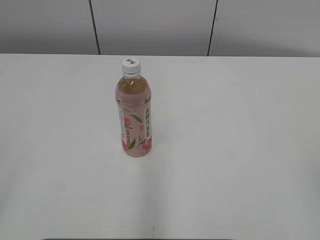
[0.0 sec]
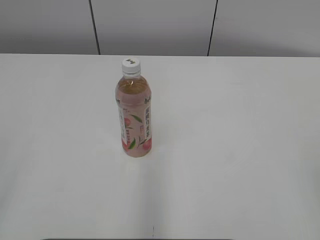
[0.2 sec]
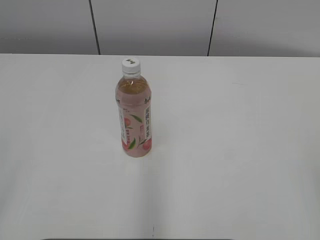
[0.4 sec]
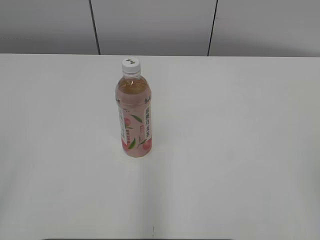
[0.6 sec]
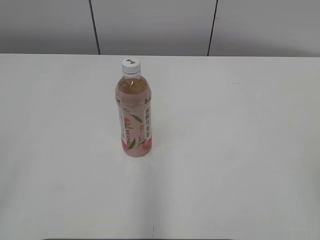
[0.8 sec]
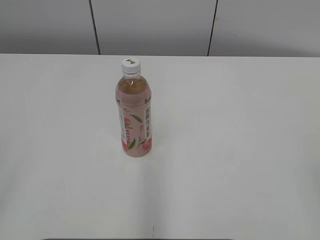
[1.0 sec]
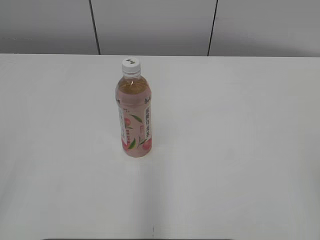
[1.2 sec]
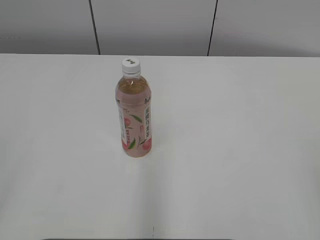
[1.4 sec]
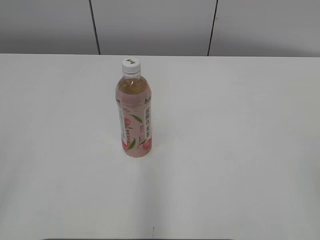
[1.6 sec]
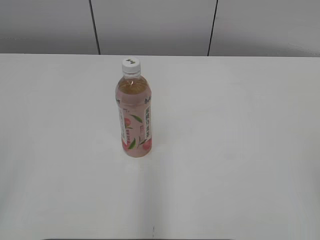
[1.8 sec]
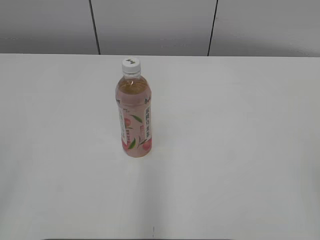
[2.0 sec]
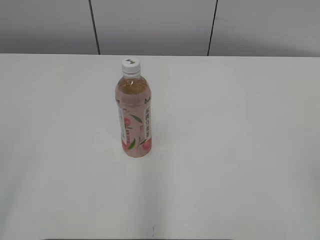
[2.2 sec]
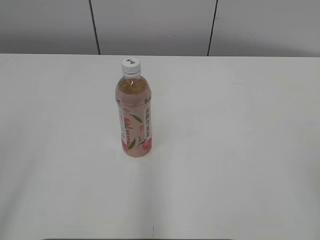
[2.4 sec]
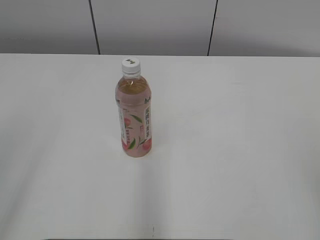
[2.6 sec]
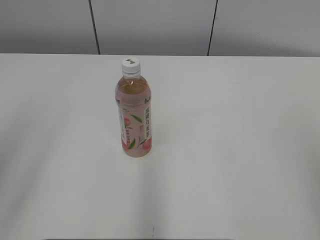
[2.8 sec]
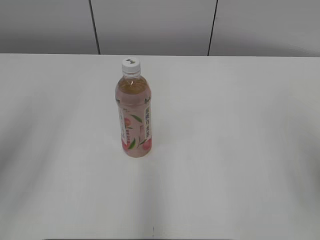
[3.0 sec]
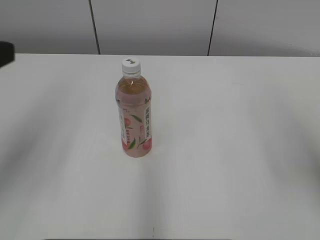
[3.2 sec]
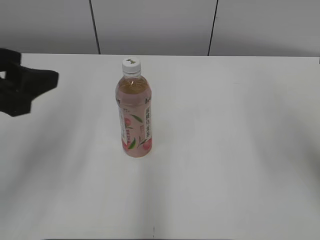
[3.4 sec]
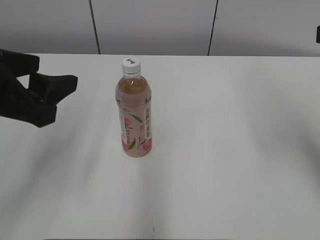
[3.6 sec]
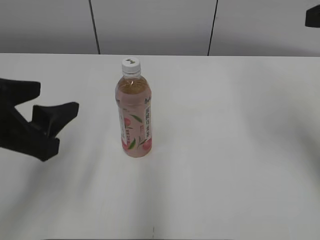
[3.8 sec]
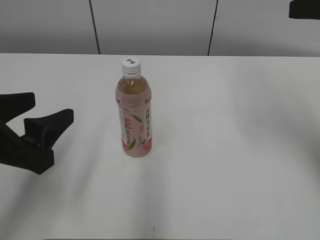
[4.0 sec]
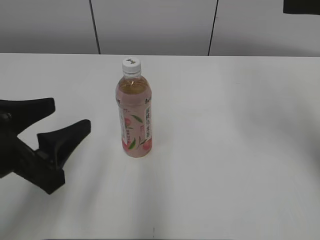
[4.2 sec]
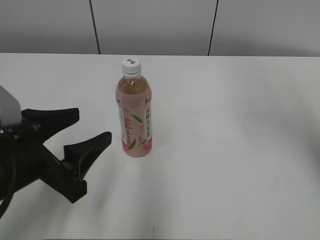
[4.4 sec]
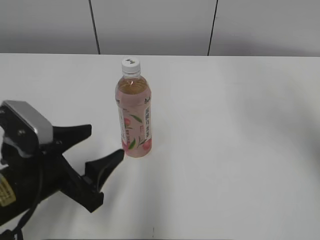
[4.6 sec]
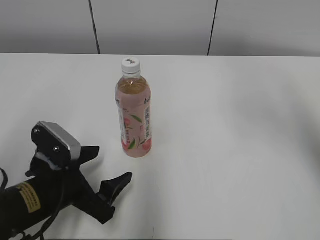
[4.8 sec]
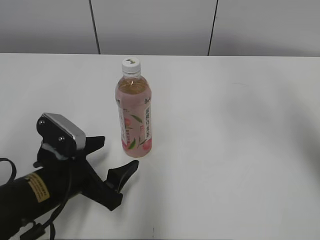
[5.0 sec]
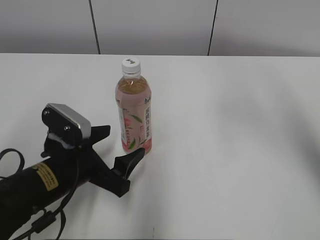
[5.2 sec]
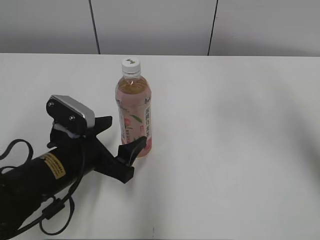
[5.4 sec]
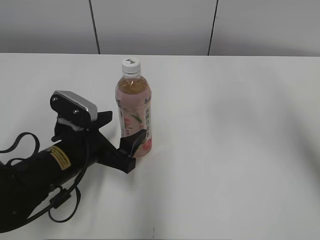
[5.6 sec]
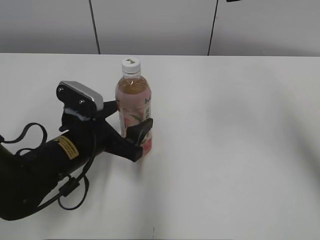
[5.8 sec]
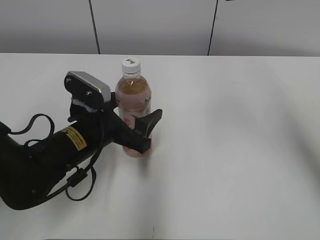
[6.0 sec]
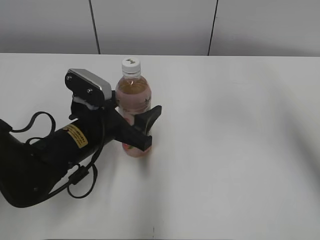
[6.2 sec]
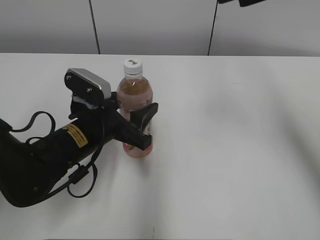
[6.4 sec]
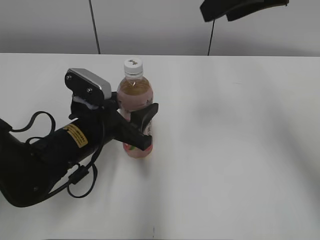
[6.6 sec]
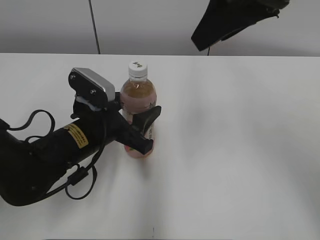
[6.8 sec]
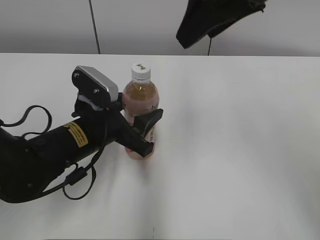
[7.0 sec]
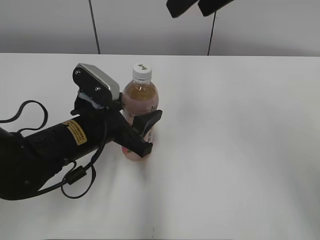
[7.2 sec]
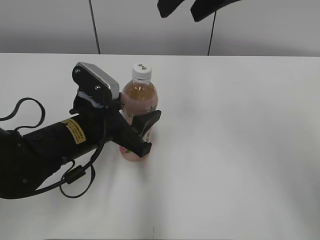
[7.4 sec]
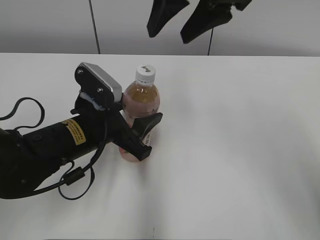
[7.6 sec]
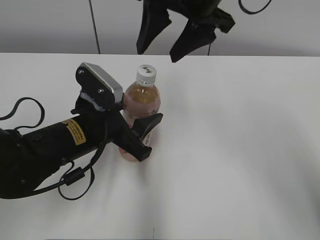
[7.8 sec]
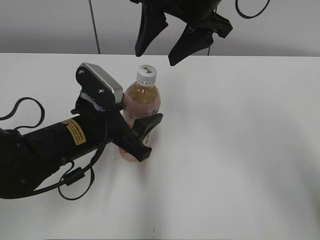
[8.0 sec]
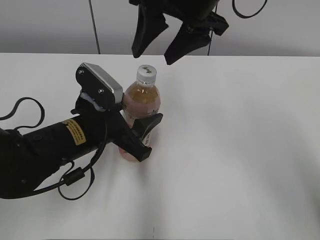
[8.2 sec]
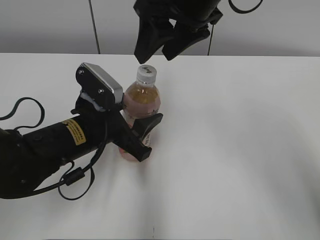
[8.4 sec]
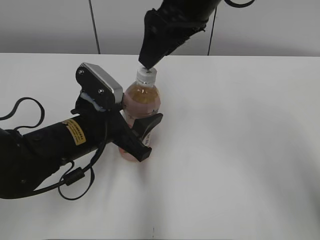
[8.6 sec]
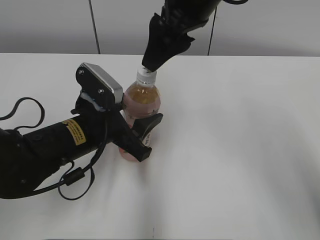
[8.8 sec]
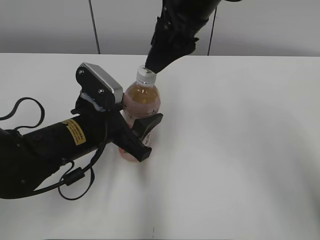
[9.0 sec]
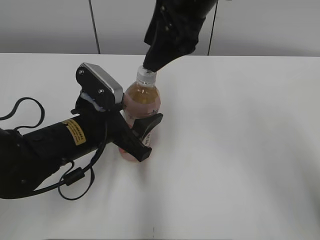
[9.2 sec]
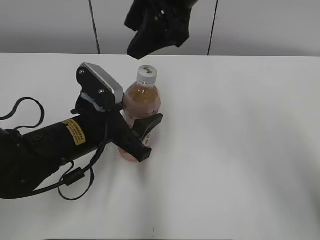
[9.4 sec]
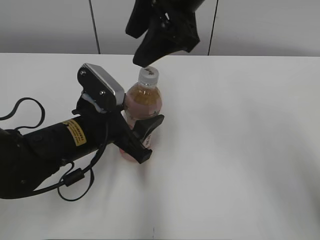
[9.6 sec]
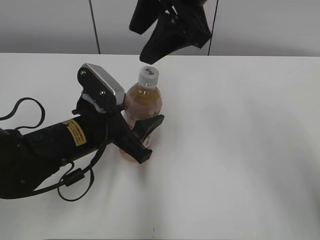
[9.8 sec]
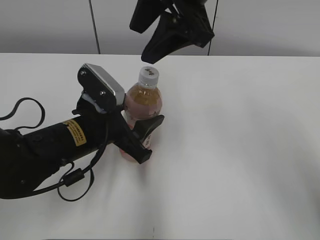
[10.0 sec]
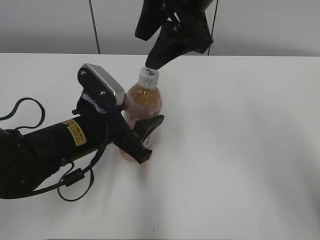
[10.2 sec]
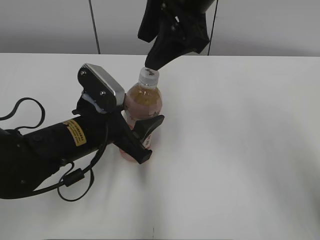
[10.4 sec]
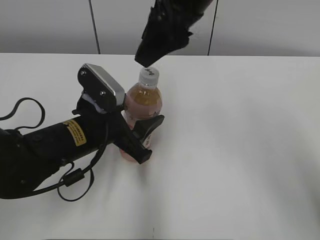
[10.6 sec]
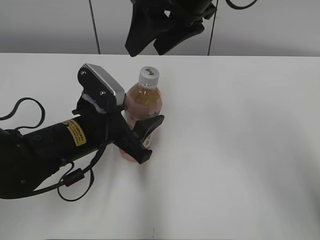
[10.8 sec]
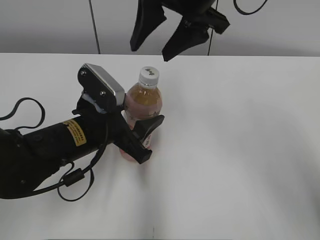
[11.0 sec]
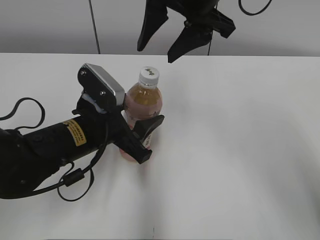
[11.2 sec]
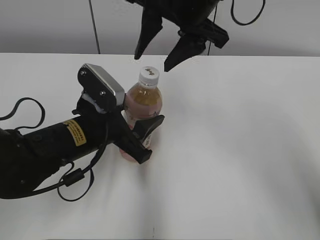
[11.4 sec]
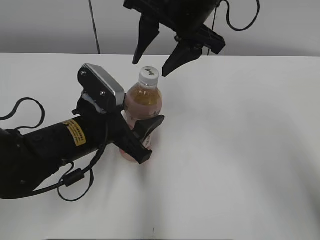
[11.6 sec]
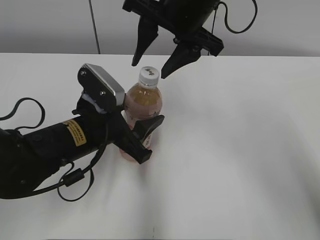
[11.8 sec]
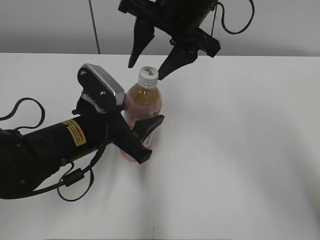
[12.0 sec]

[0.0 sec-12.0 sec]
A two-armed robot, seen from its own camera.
Step, 0.0 sec to 6.2 sec: Grab the Peach Oolong Tea with the left hand.
1.6 sec to 3.0 sec: The left gripper moves forward, approximately 15 cm.
3.0 sec to 4.4 sec: The left gripper moves downward and to the right, some 20 cm.
4.4 sec to 6.0 sec: The right gripper shifts about 10 cm to the left, and opens; the left gripper shifts some 15 cm forward, to the right and downward.
6.0 sec to 7.6 sec: The right gripper travels to the left by approximately 10 cm. The left gripper closes its fingers.

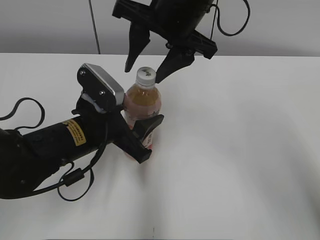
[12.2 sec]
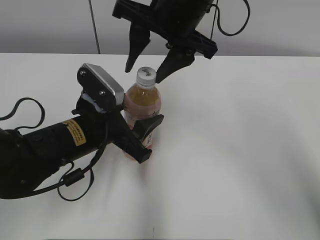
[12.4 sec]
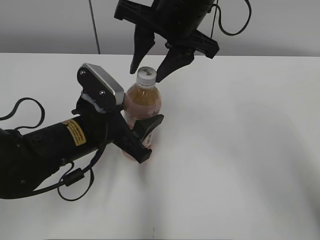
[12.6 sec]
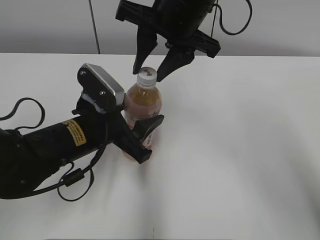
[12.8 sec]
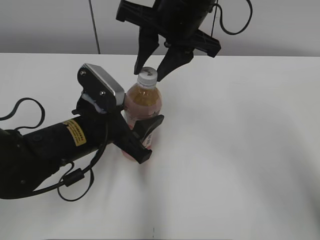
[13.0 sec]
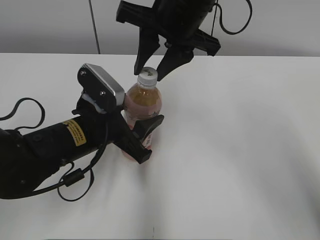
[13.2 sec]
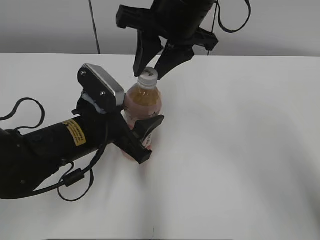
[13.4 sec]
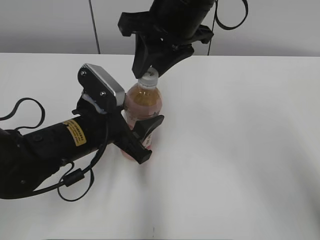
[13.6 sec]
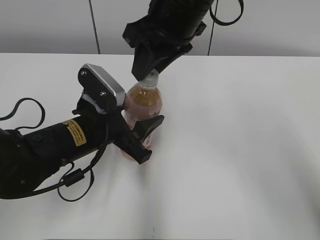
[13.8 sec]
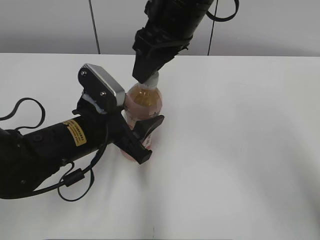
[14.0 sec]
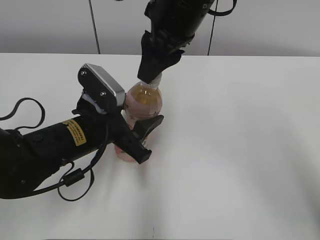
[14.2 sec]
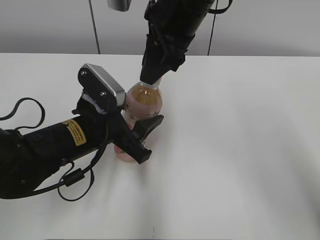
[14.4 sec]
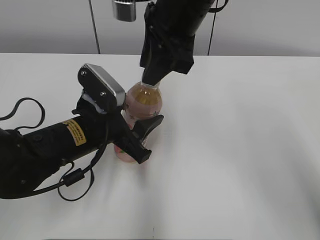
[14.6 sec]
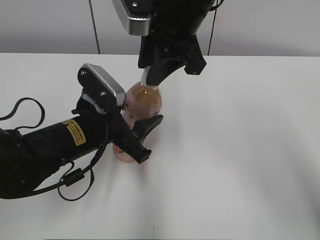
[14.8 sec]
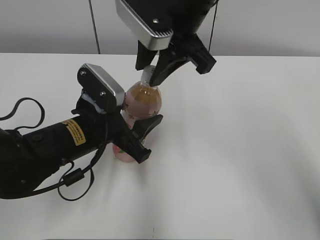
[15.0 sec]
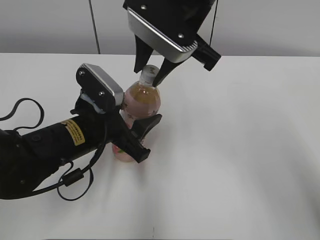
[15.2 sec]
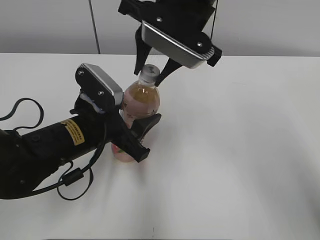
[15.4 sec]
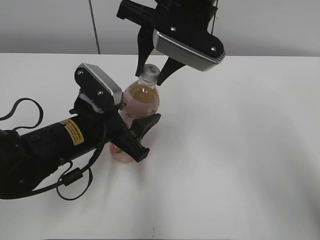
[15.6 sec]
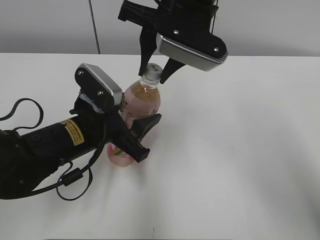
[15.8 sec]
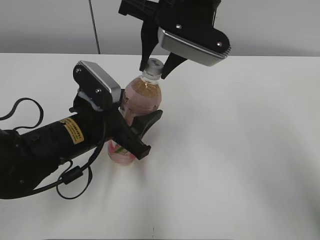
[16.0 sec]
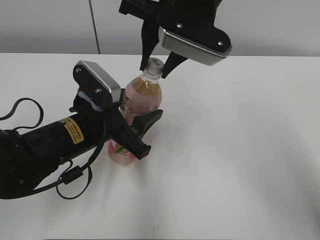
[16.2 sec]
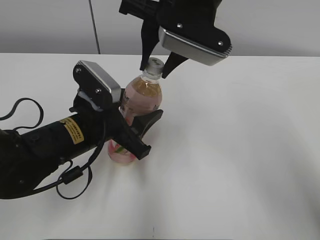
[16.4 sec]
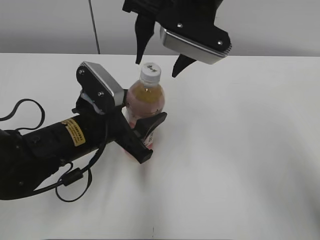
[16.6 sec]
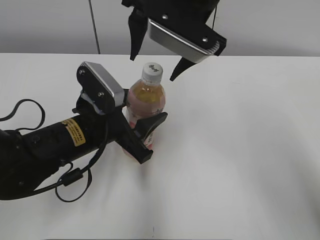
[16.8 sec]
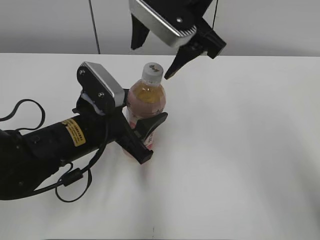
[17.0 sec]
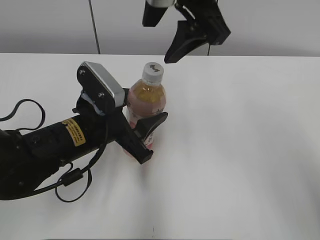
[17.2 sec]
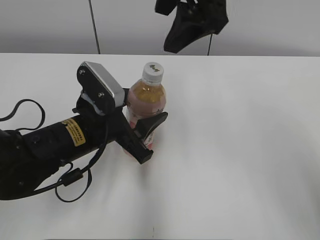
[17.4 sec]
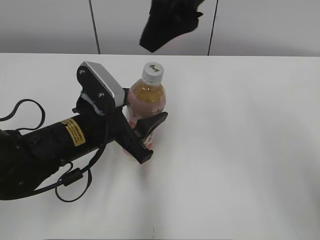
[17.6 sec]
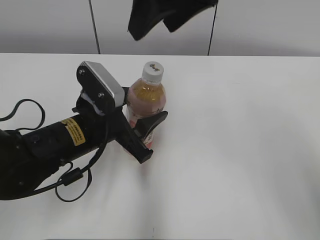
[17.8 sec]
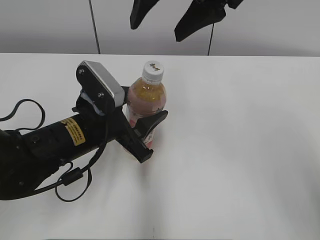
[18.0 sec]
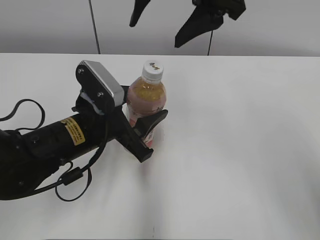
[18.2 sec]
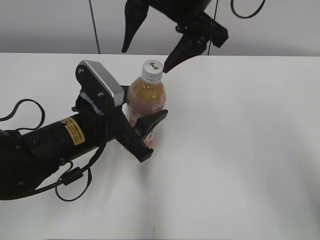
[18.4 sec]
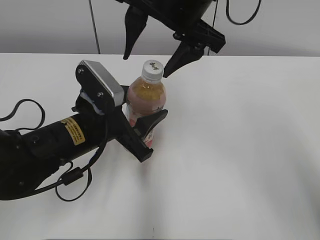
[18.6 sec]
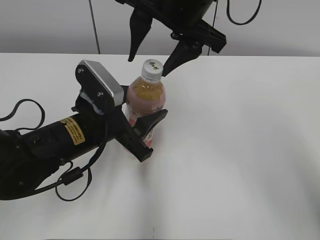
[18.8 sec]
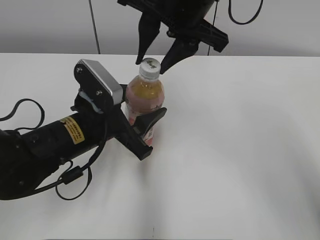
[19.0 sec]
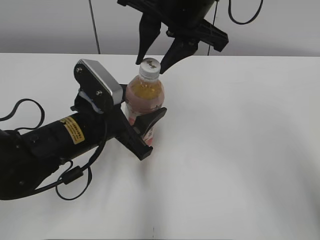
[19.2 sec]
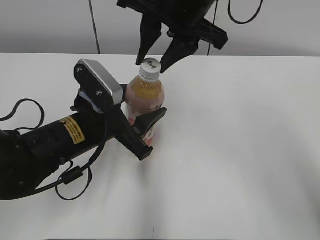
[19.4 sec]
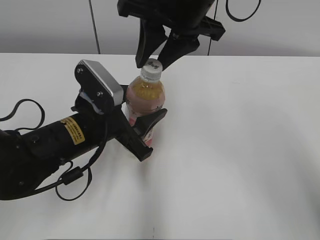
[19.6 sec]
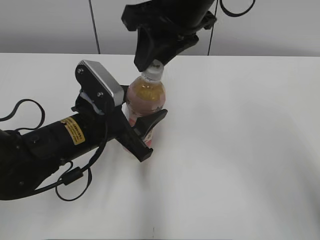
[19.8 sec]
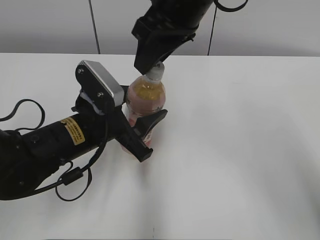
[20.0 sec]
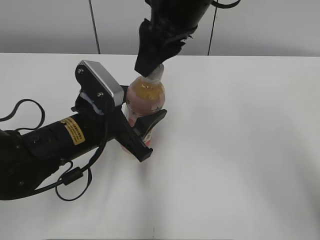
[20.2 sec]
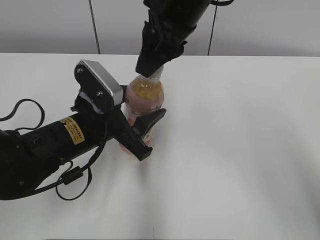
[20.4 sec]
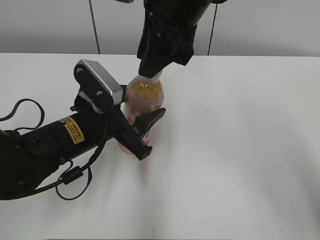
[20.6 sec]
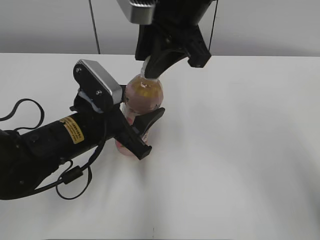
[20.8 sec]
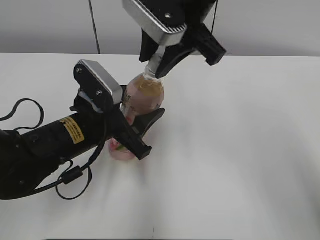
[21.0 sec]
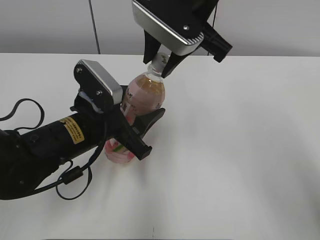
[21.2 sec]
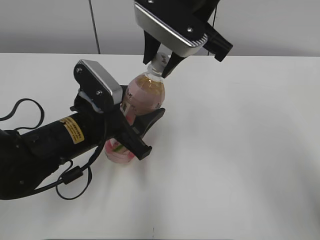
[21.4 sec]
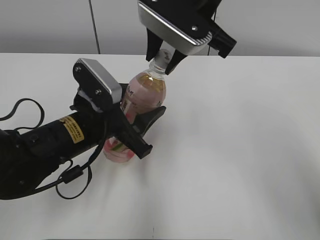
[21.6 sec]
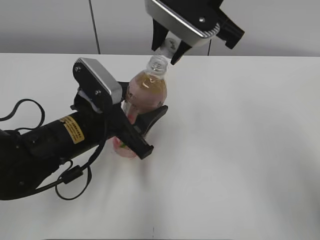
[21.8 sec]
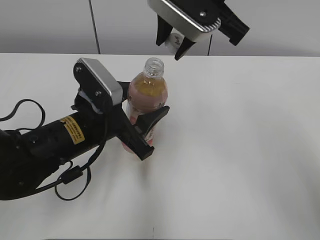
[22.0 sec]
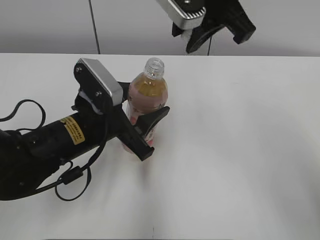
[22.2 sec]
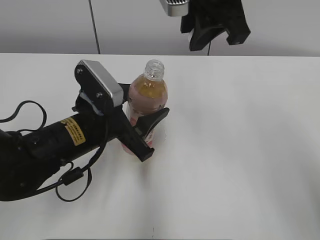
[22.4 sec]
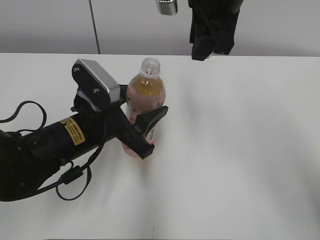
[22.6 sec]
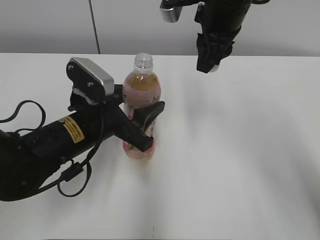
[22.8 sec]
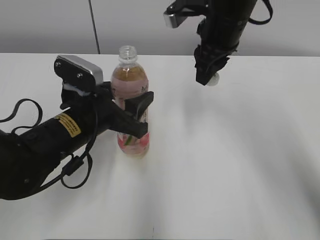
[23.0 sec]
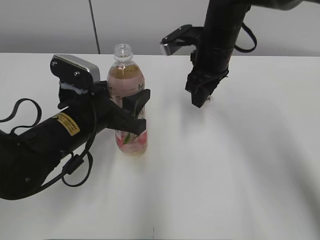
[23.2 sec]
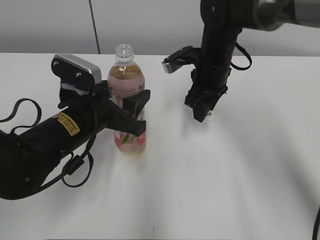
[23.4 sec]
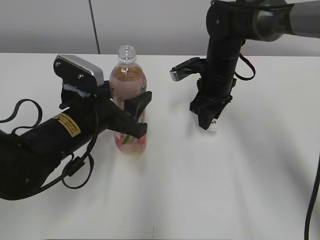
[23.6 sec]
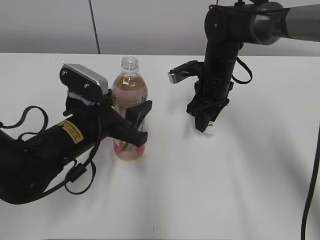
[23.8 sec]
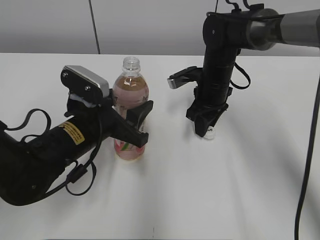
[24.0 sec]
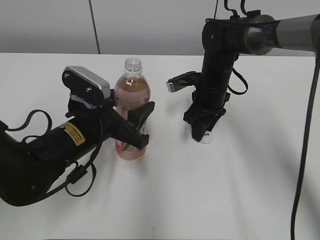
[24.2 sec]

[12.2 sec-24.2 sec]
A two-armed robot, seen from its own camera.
12.2 sec to 13.8 sec: The right gripper closes its fingers.
15.2 sec to 16.6 sec: The right gripper opens up.
16.6 sec to 18.2 sec: The right gripper shifts some 5 cm upward.
18.2 sec to 19.8 sec: The right gripper closes up.
22.6 sec to 24.2 sec: The right gripper shifts some 20 cm downward.
